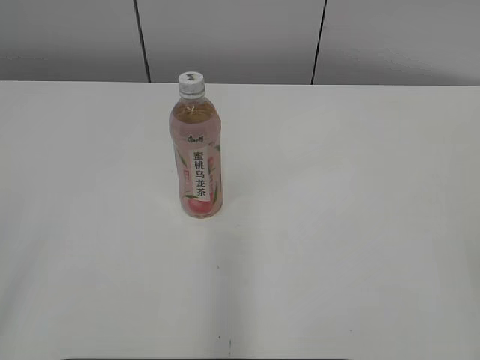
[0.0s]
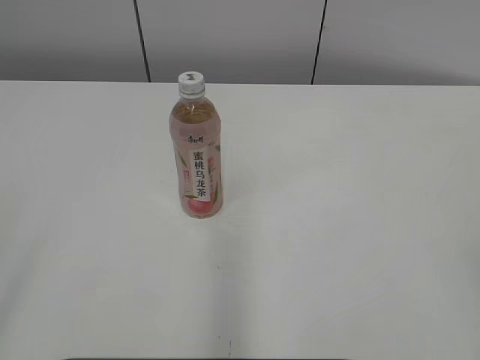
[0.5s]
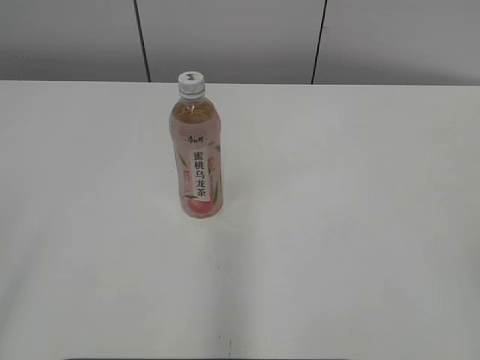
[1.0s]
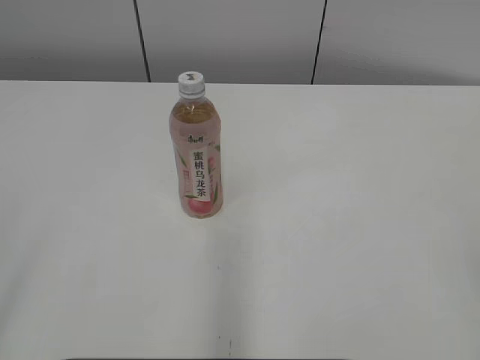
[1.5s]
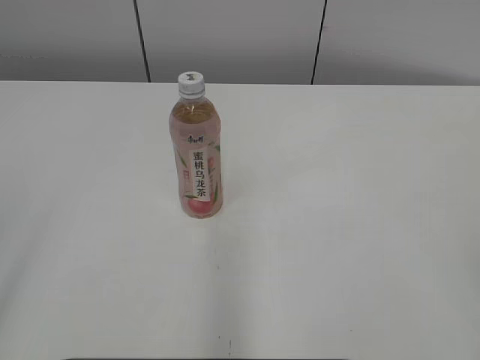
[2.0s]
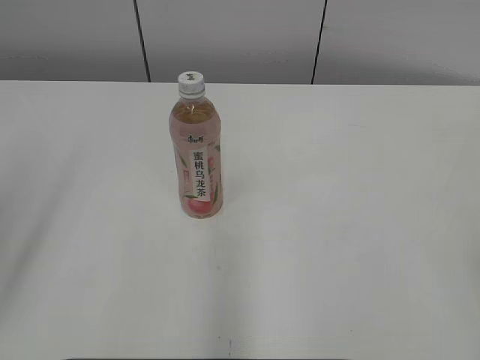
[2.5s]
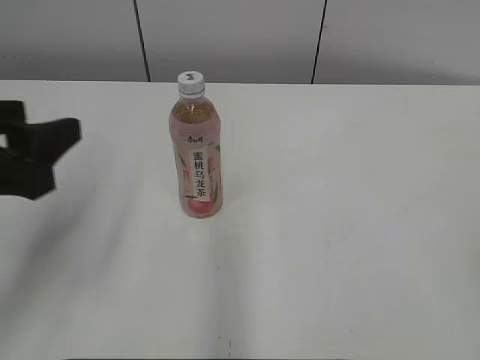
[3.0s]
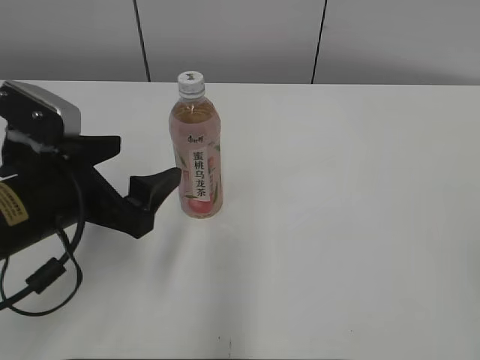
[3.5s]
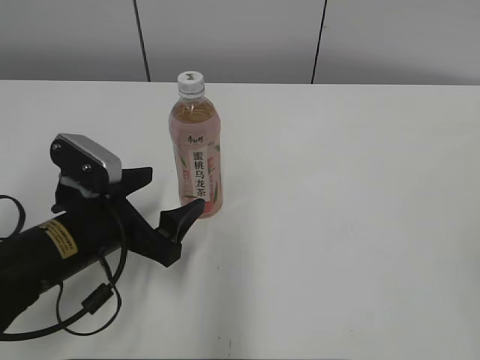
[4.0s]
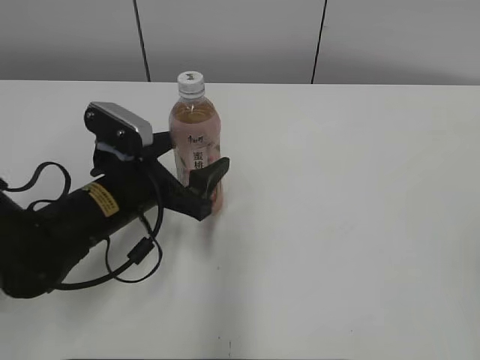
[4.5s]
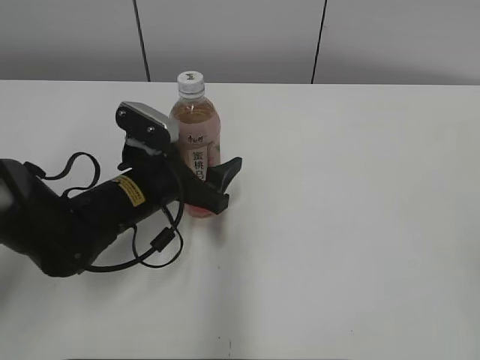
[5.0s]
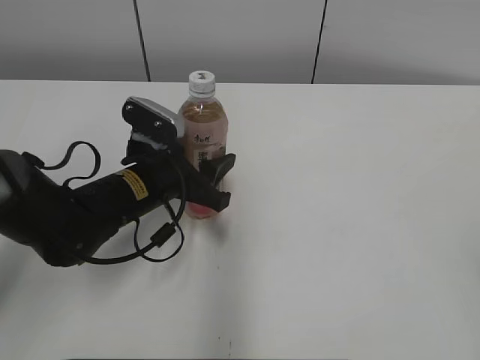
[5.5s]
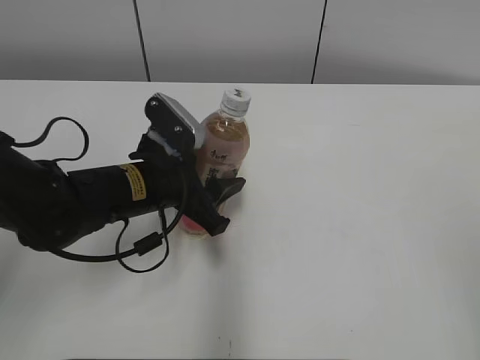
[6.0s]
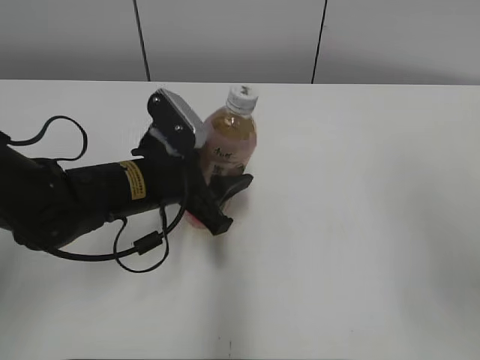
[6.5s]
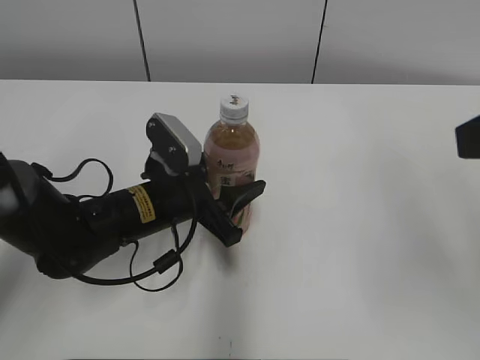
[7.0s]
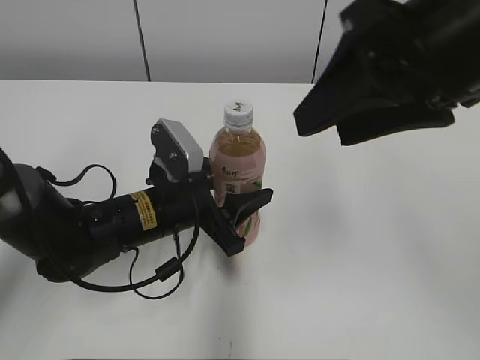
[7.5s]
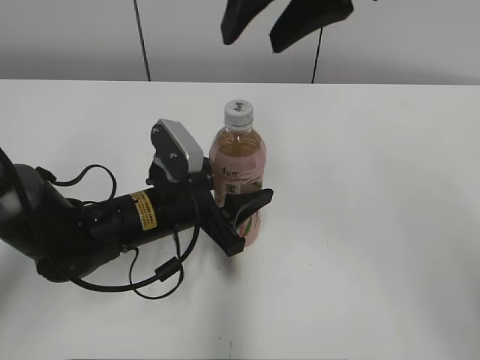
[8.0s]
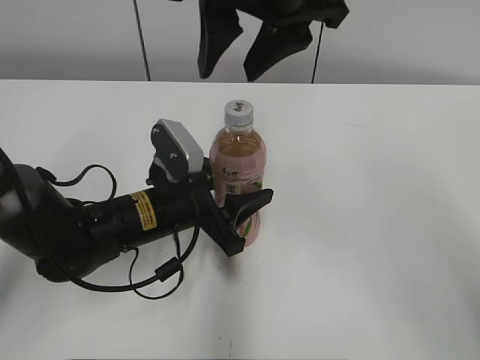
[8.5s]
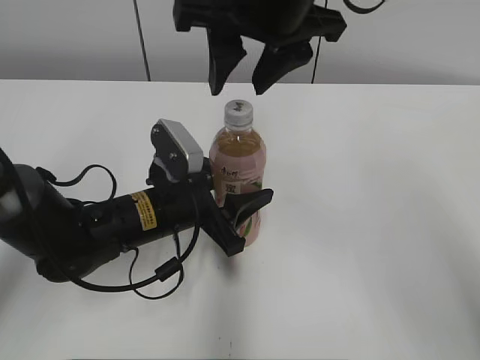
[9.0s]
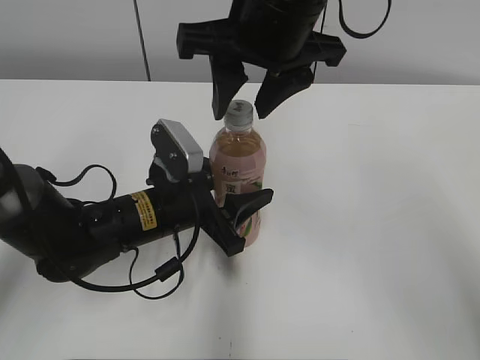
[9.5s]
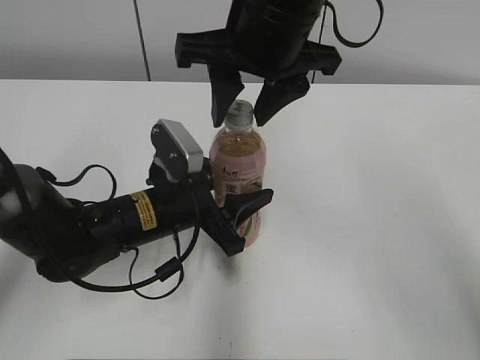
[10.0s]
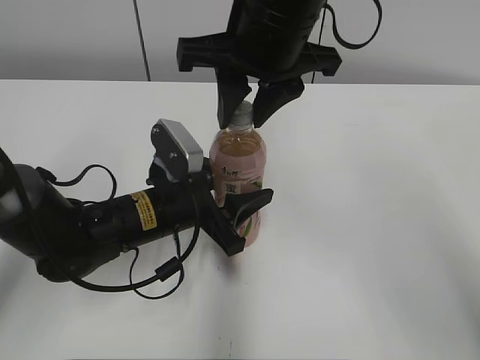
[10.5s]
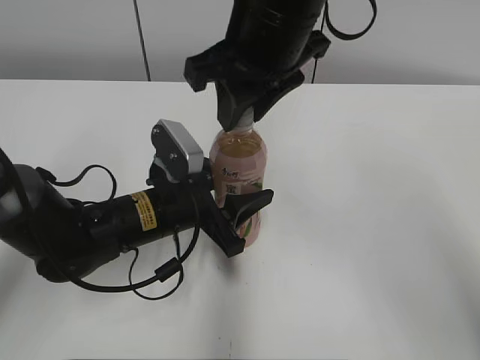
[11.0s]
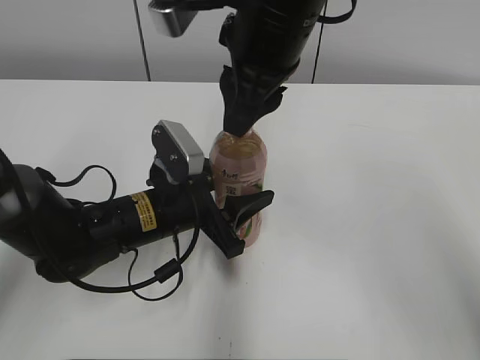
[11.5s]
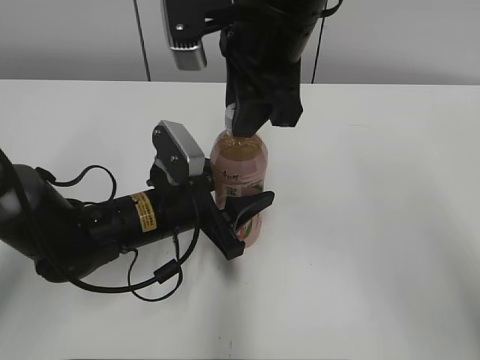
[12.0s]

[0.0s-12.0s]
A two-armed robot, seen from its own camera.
Step, 0.0s to 5.0s: Grab the Peach Oolong Tea with the left hand.
Step, 5.5s to 7.0s: Move the Peach Oolong Tea from left to right.
2.0s to 4.0s: The left gripper heads forward, downward and to the right, covering roughly 35 cm, and closes, then reopens.
4.0s to 6.0s: The left gripper heads forward and to the right, covering approximately 10 cm, and closes up.
6.0s to 8.0s: The right gripper heads forward and to the left, covering roughly 35 cm.
8.0s to 10.0s: The right gripper travels downward by about 10 cm.
10.0s to 12.0s: The right gripper closes.

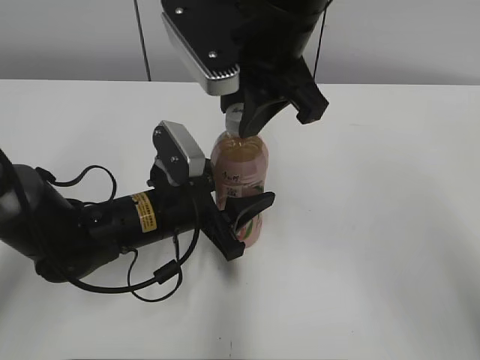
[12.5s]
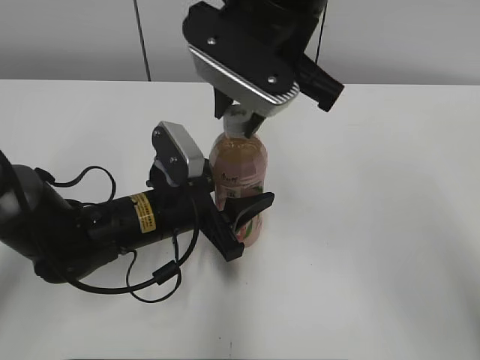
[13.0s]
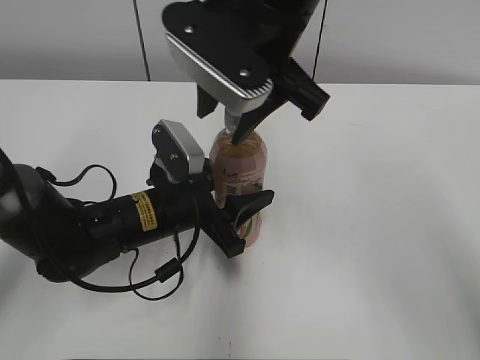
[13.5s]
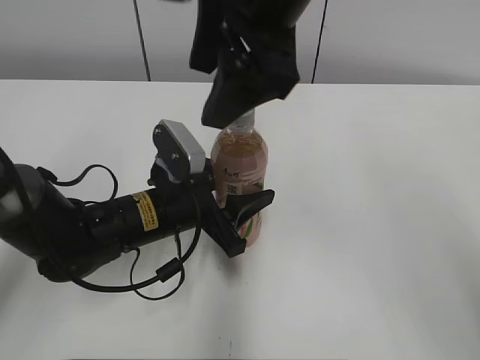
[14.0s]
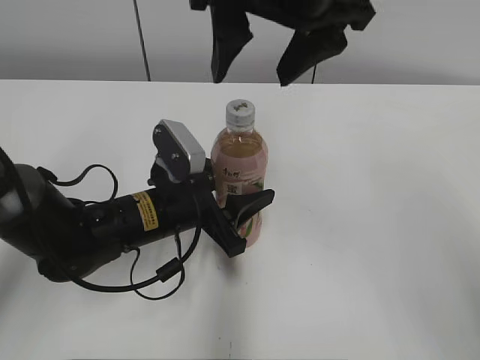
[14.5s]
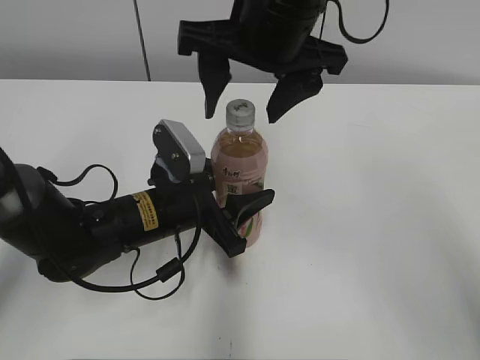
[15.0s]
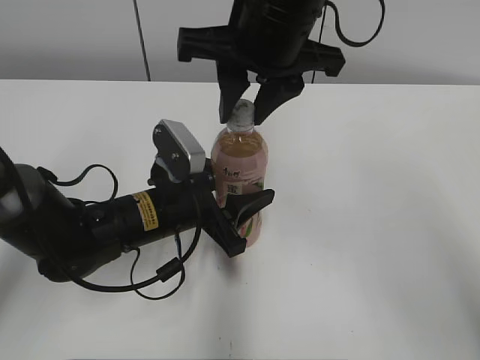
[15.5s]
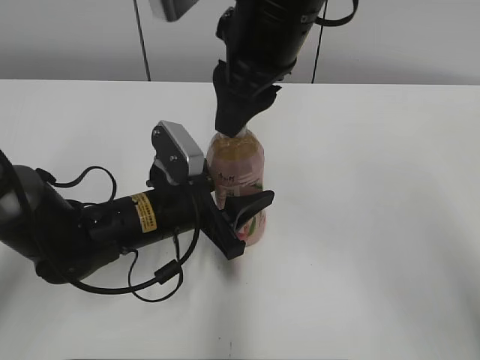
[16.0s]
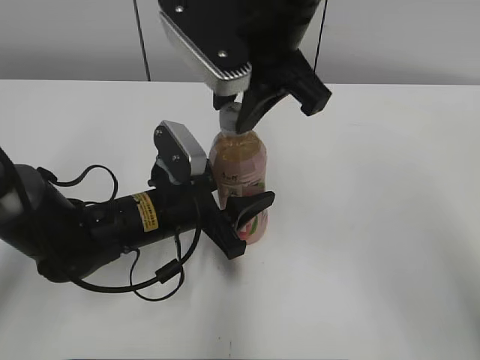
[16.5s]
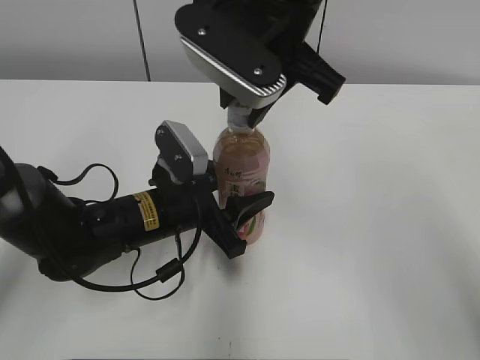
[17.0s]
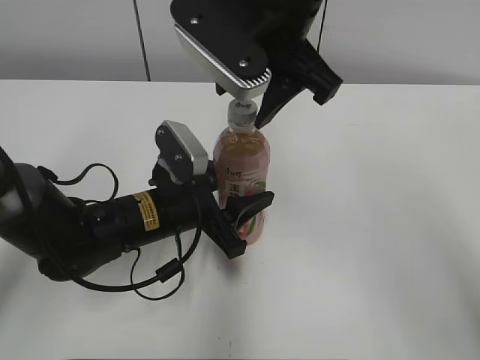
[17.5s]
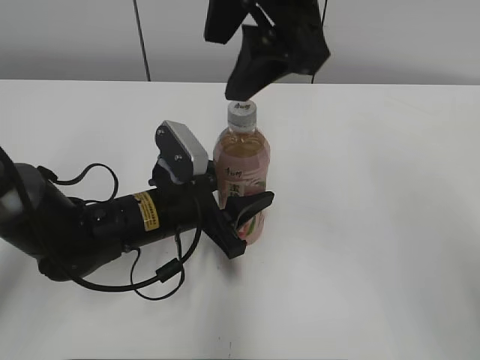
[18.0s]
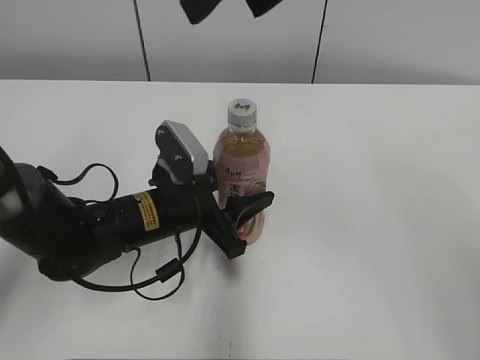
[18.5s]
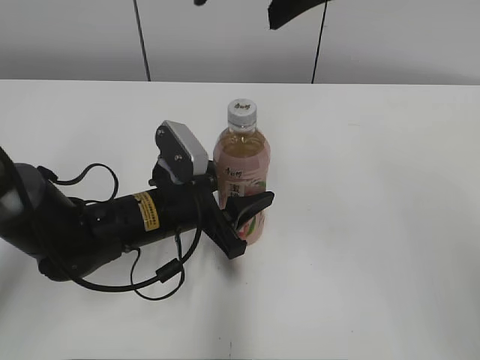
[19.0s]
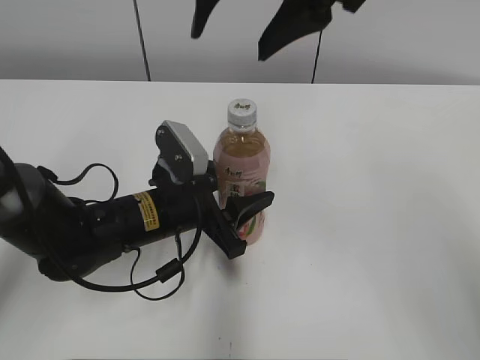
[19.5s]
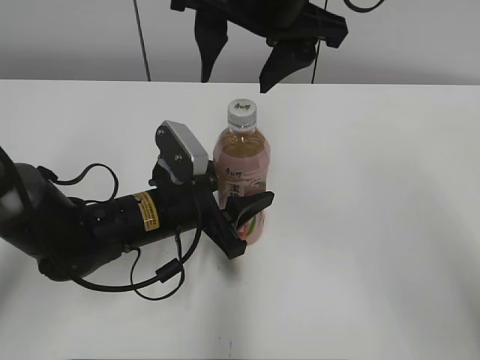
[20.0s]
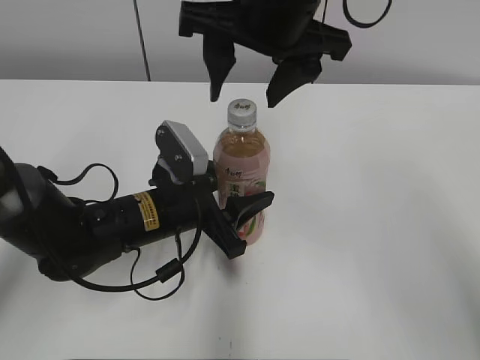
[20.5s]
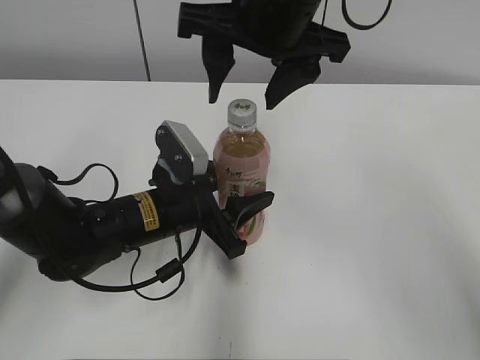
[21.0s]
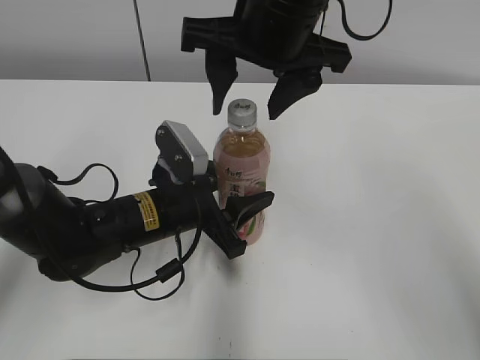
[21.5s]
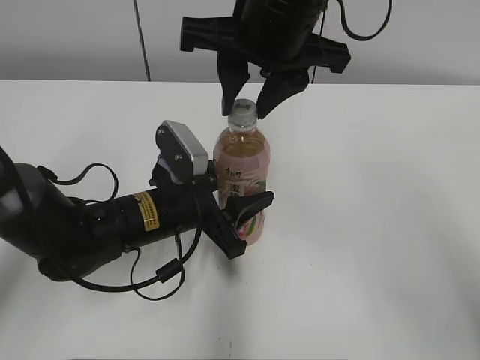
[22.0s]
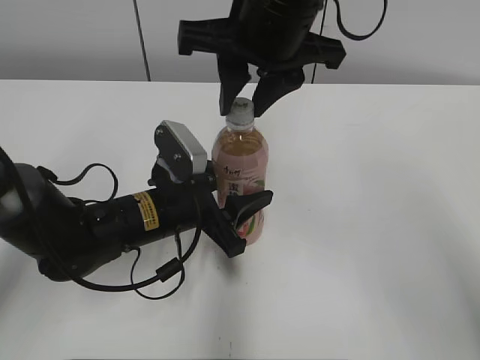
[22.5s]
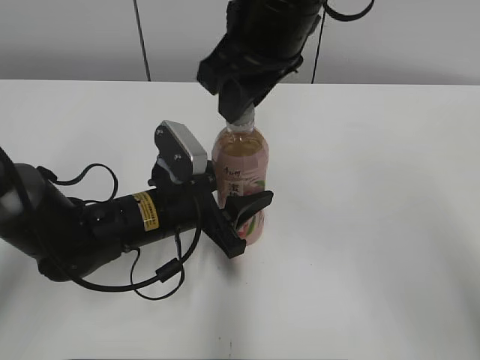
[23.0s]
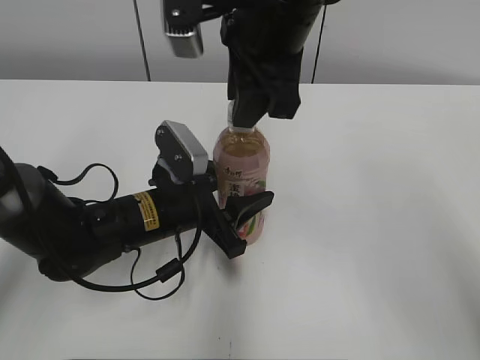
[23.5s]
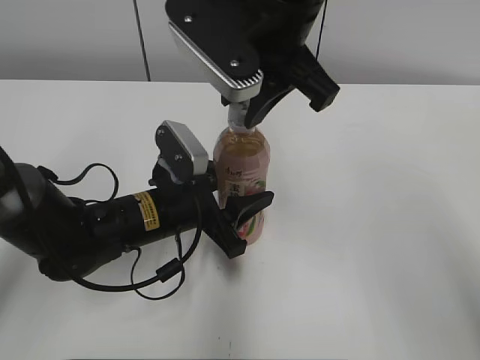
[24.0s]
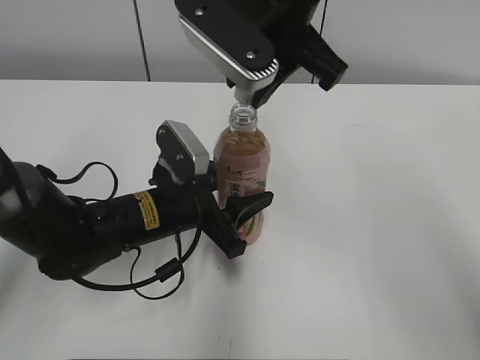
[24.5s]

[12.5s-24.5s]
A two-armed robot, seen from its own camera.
12.5s to 14.5s: The right gripper travels upward by roughly 5 cm, and opens up.
14.5s to 16.5s: The right gripper closes its fingers.
16.5s to 18.5s: The right gripper is displaced upward by approximately 10 cm, and opens.
18.5s to 20.5s: The right gripper heads downward, covering roughly 10 cm.
20.5s to 22.5s: The right gripper closes.

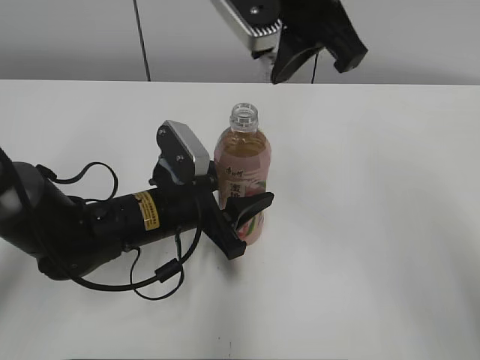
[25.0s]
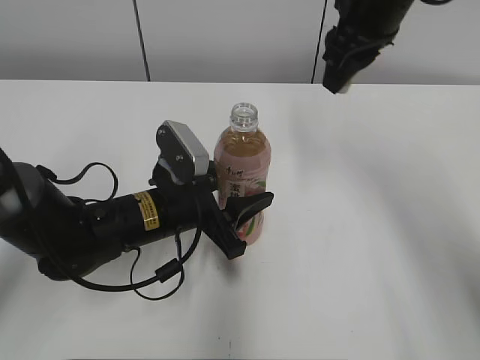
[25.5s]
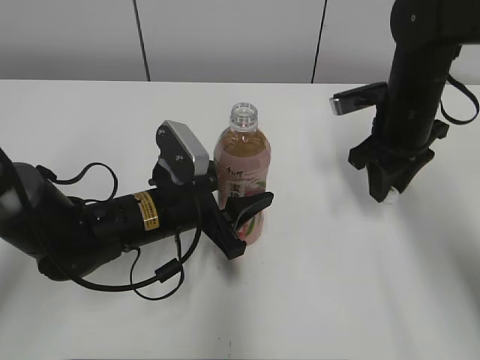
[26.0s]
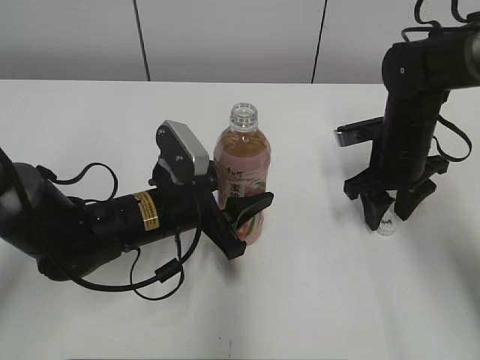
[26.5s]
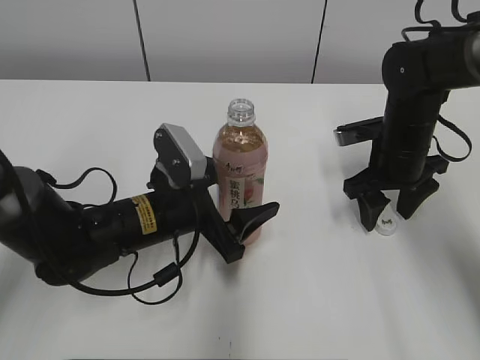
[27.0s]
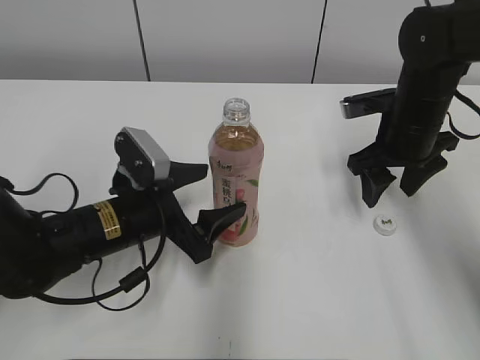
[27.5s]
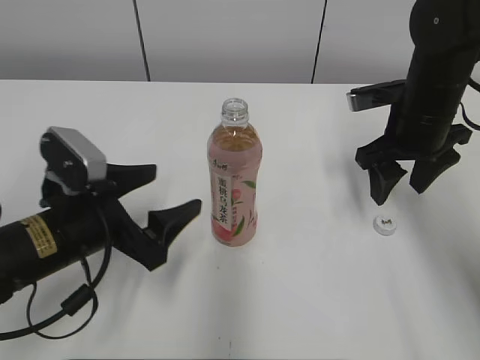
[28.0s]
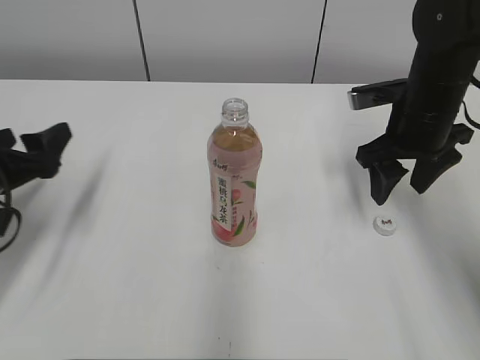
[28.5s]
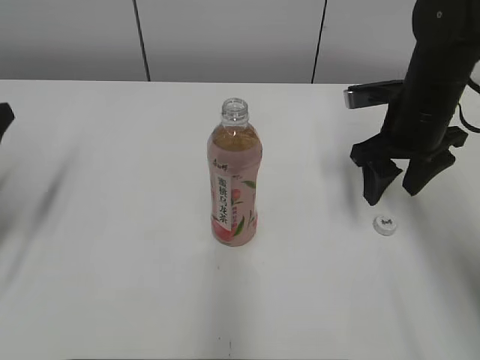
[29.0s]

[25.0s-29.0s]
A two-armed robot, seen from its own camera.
Step, 25.0s to 26.0s: Place the bottle cap on the right.
Step, 26.5s to 27.5s: Place the Peach Oolong Tea with the left hand.
25.0s to 27.0s: The right gripper goes about 25 cm downward and to the right, and opens, while the left gripper opens.
27.0s to 29.0s: The left gripper heads to the left, covering about 25 cm, while the right gripper moves upward, some 5 cm.
